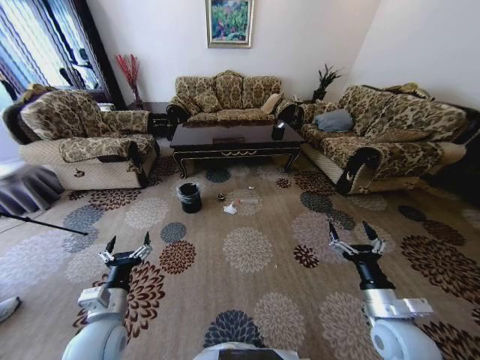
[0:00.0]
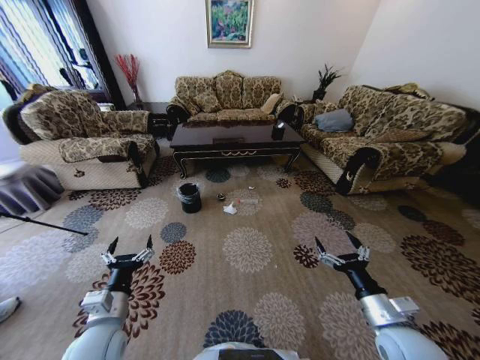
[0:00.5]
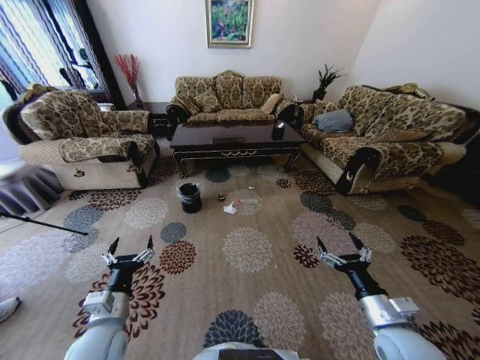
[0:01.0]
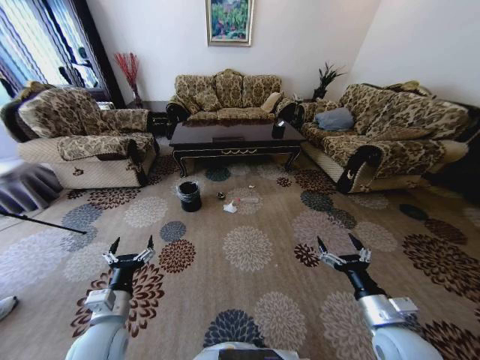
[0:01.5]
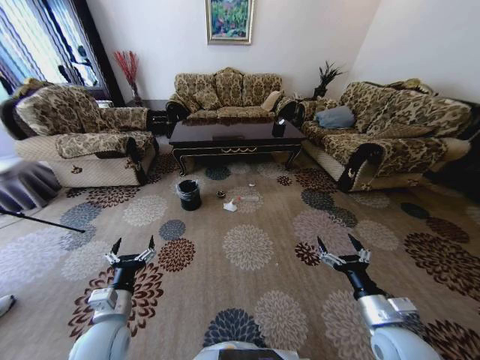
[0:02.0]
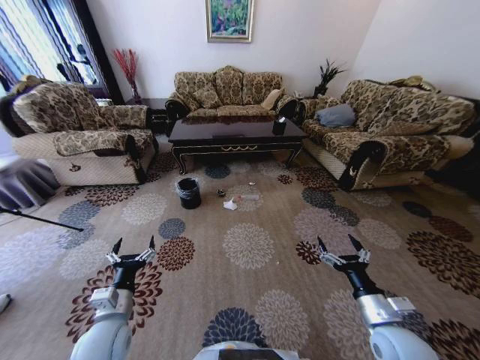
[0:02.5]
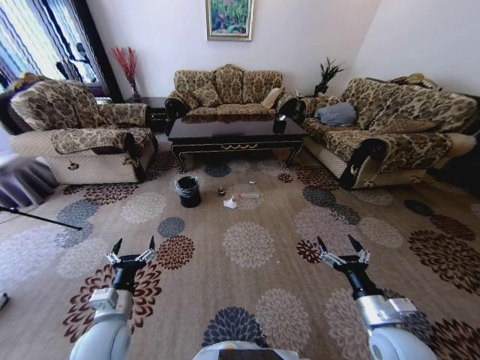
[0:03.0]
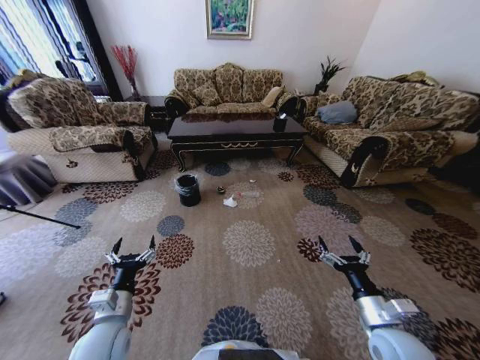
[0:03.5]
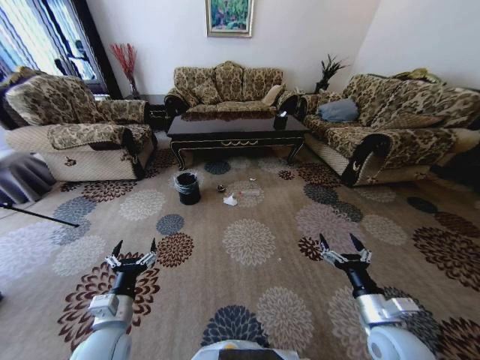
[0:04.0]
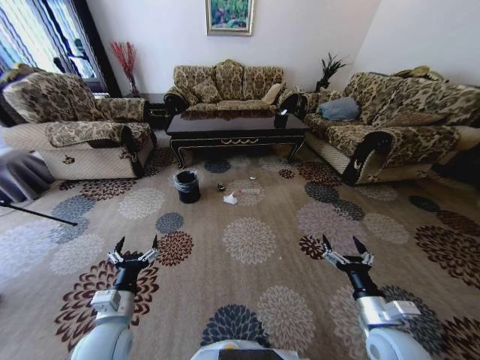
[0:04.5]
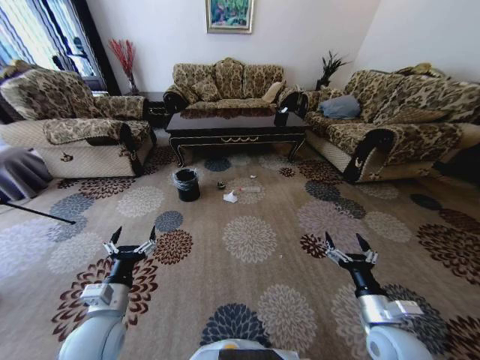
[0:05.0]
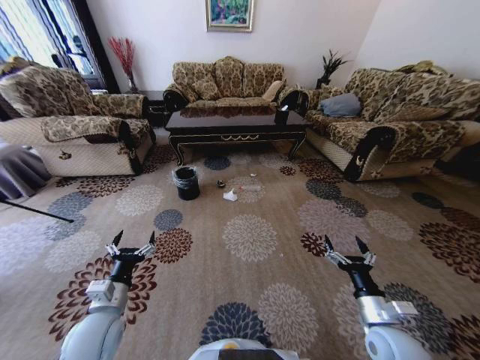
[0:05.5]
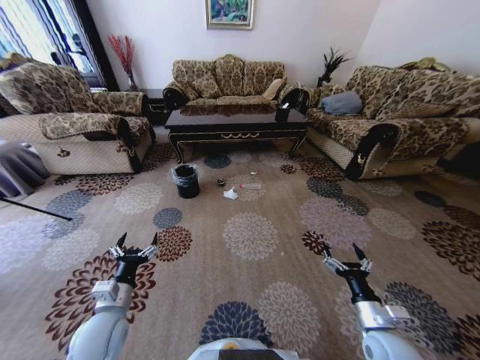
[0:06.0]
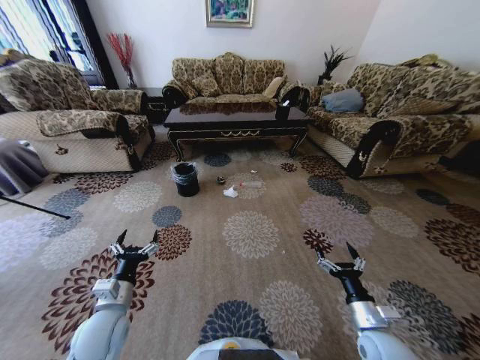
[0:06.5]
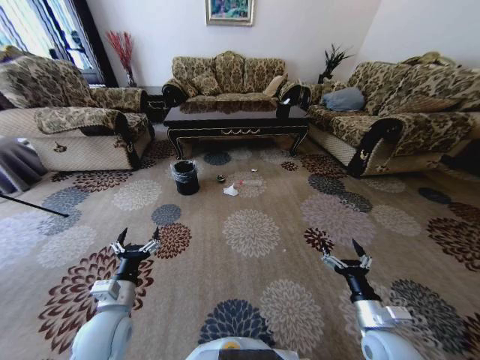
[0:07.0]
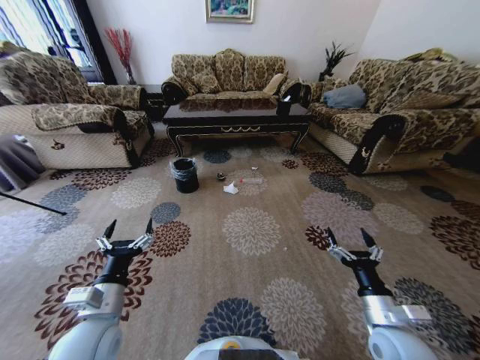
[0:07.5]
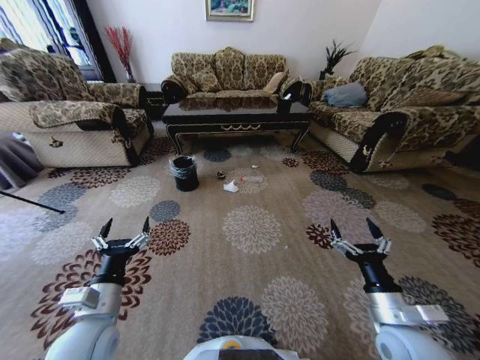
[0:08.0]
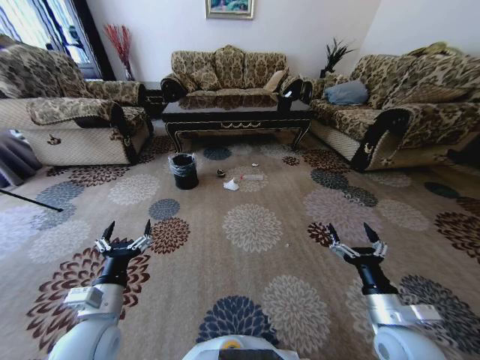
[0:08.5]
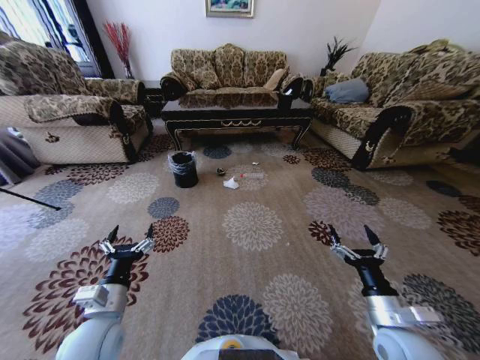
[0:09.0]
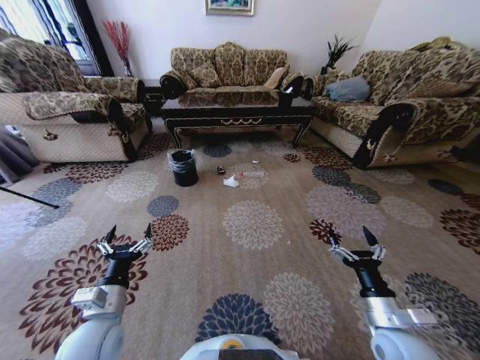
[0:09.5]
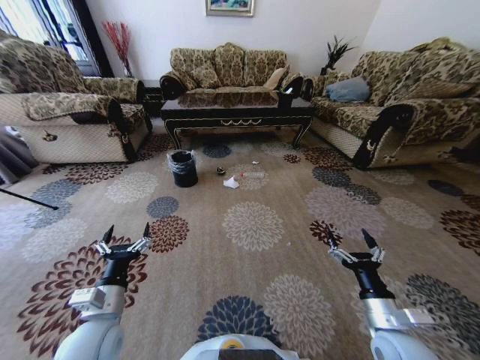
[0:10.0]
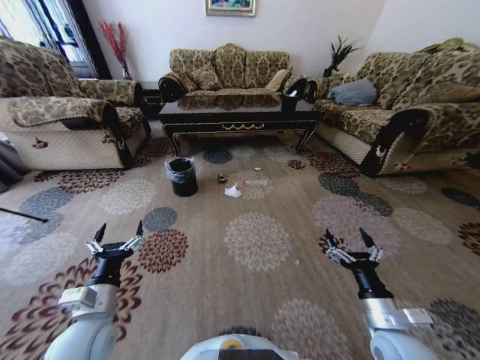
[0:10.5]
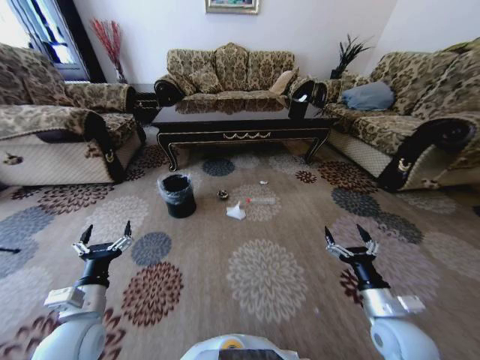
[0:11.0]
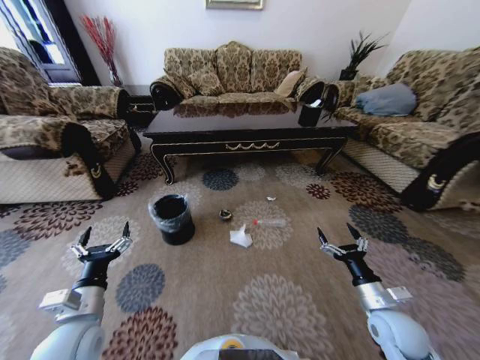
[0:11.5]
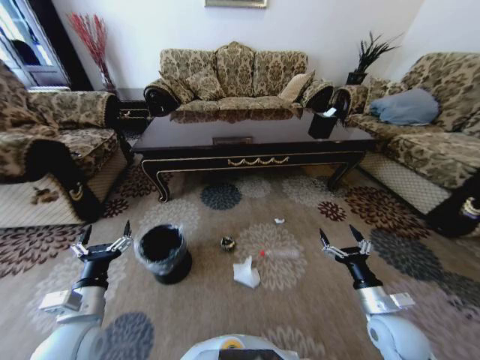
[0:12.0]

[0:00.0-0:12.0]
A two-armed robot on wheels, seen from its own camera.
Task of the whole recording: Move to the front of the table and pick up the trash from the floor, then place it into the trash bin.
0:06.0 to 0:08.0: The two grippers go approximately 10 cm upward.
0:10.0 to 0:12.0: The right gripper changes place by about 5 cm.

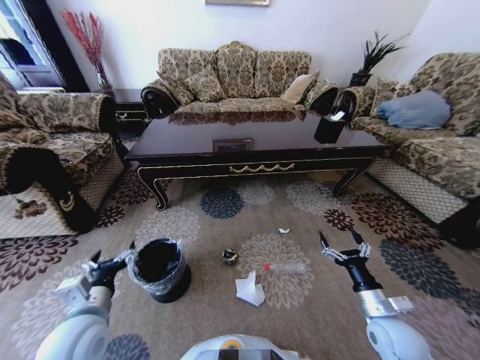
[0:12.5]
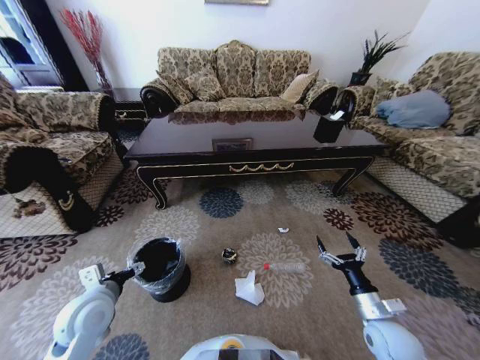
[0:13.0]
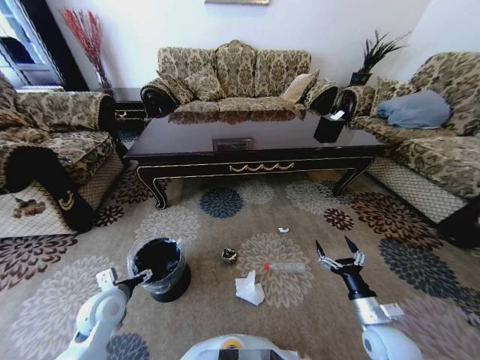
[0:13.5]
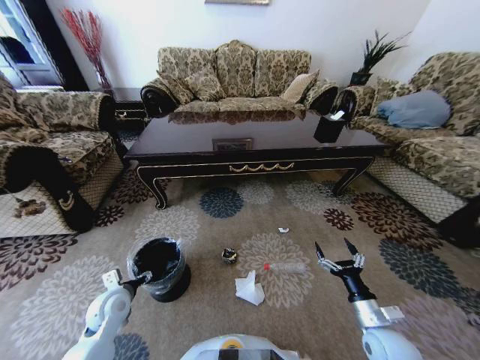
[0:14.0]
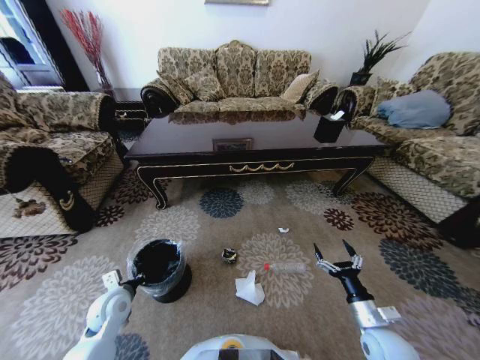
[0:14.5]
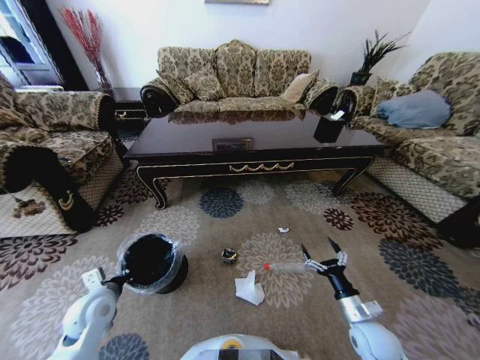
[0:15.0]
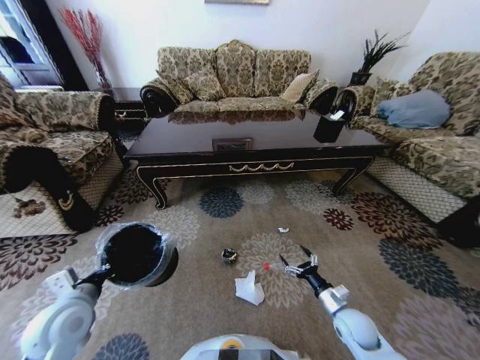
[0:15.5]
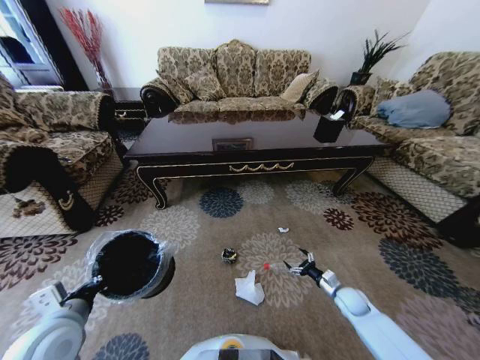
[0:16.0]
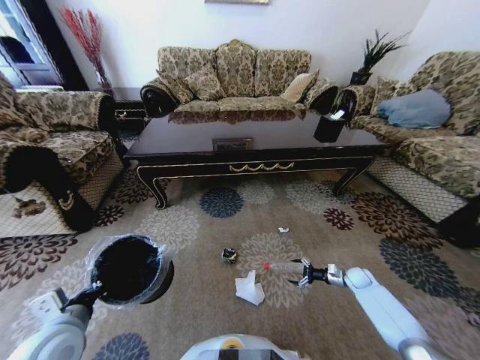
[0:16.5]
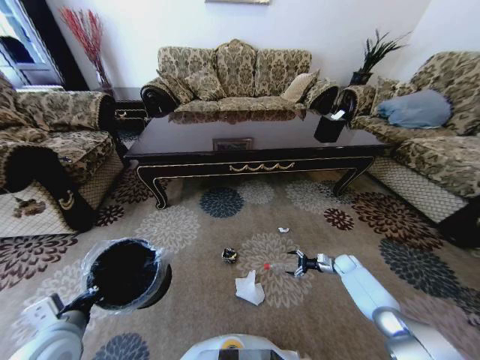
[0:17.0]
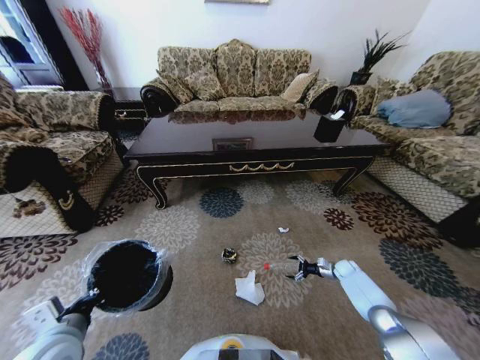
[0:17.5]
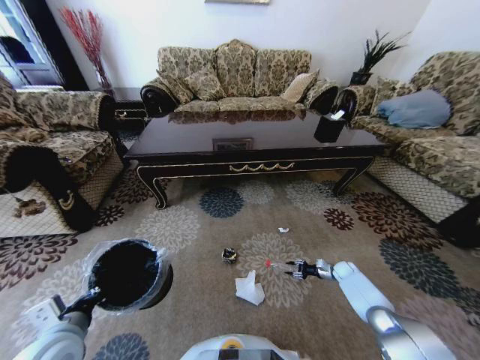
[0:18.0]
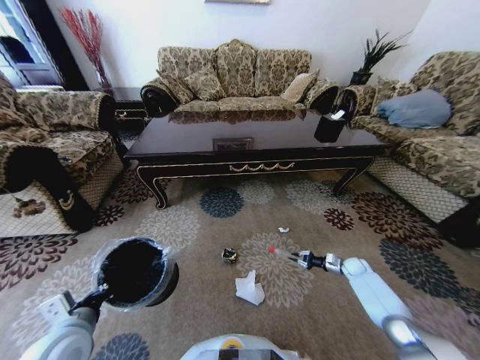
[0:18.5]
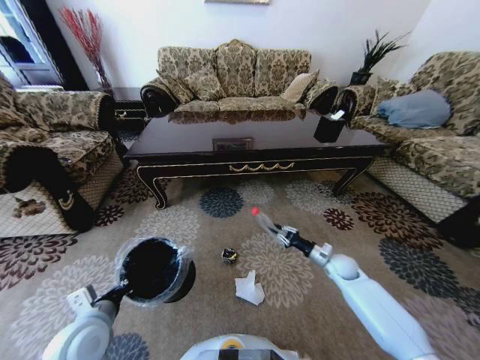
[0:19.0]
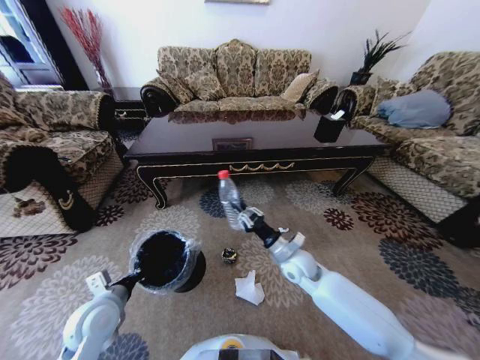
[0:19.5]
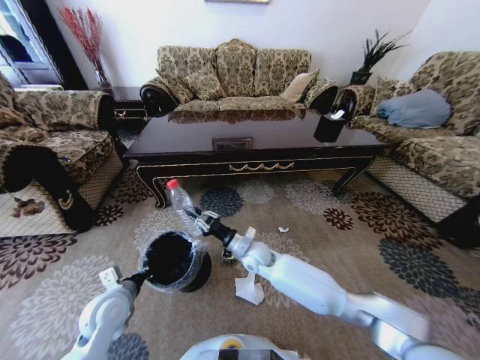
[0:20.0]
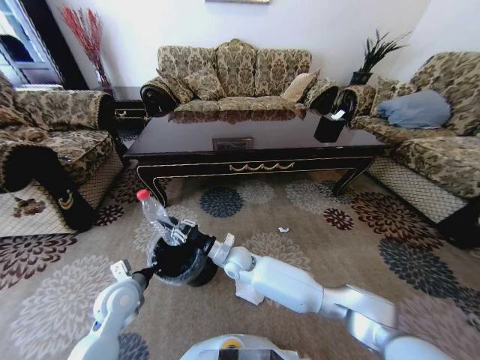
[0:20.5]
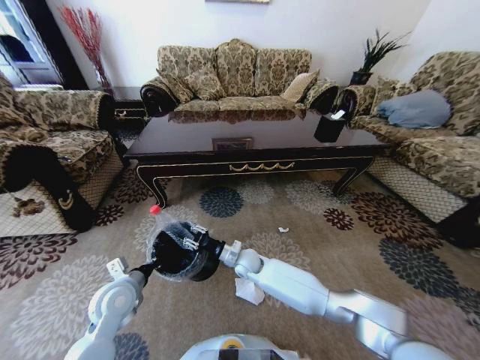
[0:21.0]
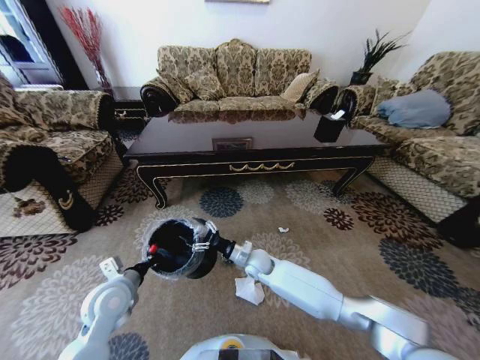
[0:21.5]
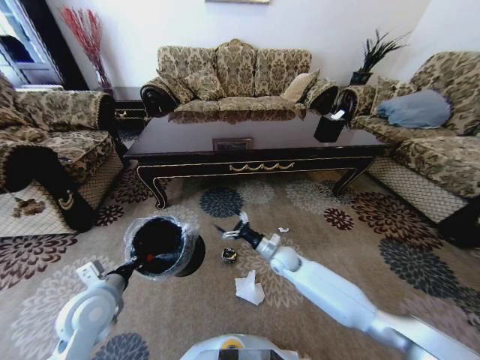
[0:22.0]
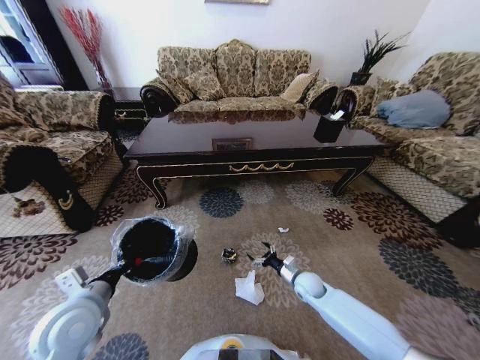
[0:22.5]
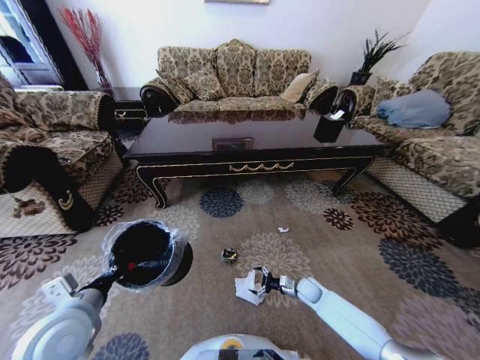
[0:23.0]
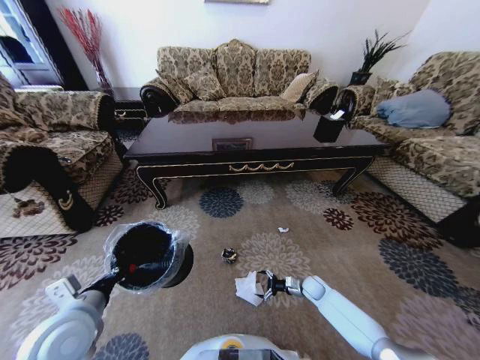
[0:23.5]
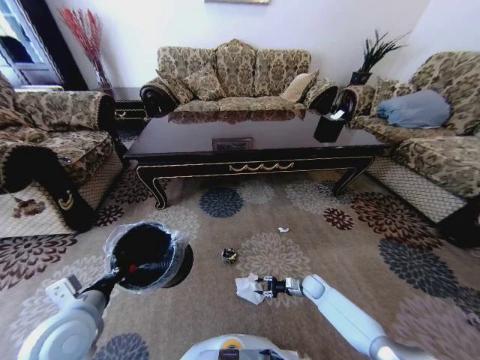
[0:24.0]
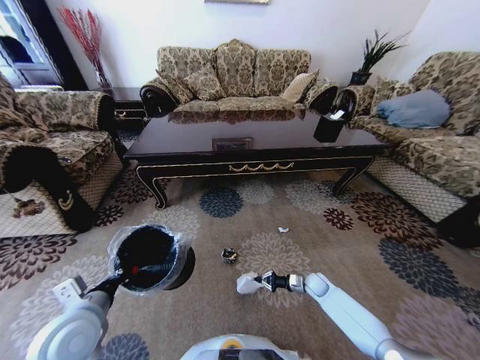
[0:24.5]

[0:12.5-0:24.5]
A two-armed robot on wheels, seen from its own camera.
Task of the whole recording: Move to the front of the table and pick up the trash from the floor, then place it into the trash bin.
0:12.5 to 0:14.5: The left gripper moves downward and forward, roughly 15 cm, and closes up.
0:14.5 to 0:16.5: The right gripper moves forward, to the right and downward, approximately 30 cm; the left gripper shifts some 15 cm upward and backward.
0:16.5 to 0:18.5: The right gripper closes.
0:18.5 to 0:20.5: The left gripper travels forward and downward by approximately 15 cm, while the right gripper is displaced to the left by about 50 cm.
0:20.5 to 0:22.5: The right gripper moves to the right and downward, some 30 cm, and opens up. Meanwhile the left gripper is displaced upward and backward by approximately 10 cm.
0:22.5 to 0:24.5: The right gripper moves to the right and downward, some 10 cm, and closes its fingers.

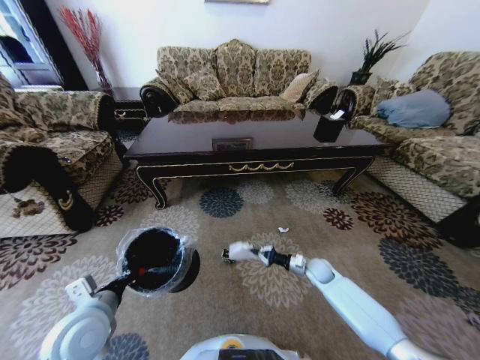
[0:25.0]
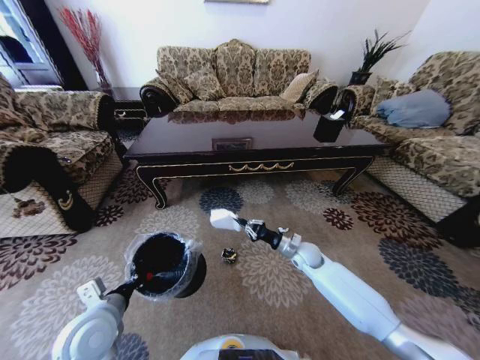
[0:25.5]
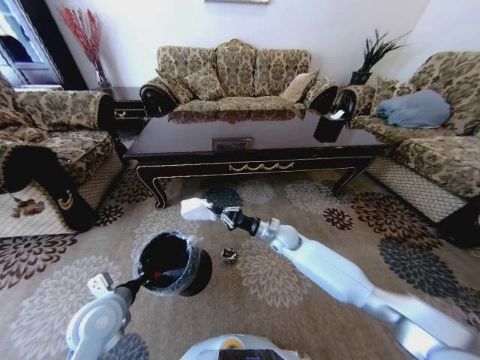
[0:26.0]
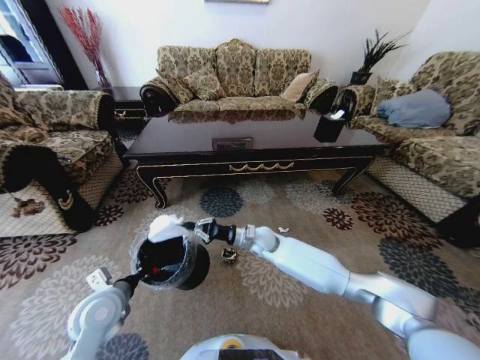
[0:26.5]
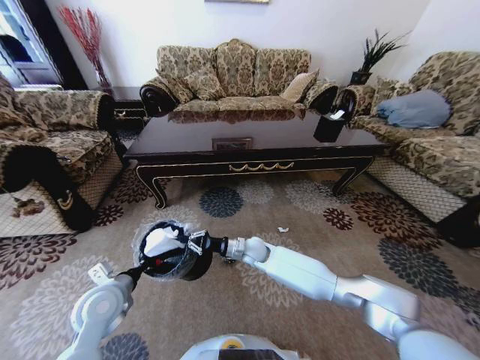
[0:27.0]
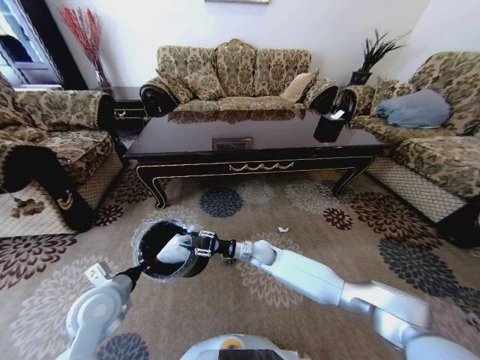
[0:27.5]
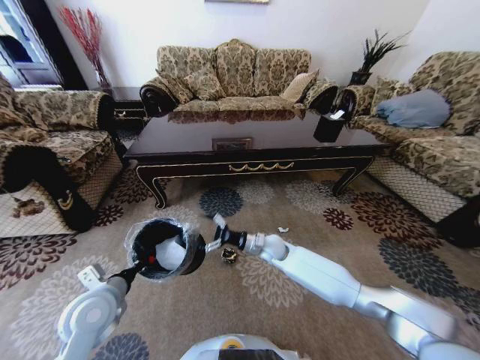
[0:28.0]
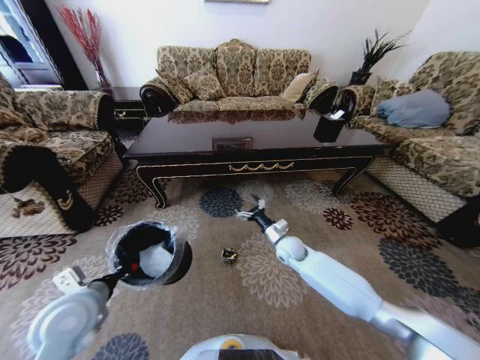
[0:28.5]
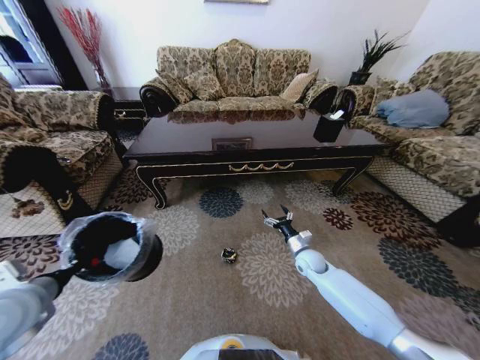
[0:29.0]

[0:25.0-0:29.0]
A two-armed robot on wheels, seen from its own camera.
Task of the whole recording: Move to the front of the table and pick up the trash from the floor, then place it into the trash bin.
0:25.0 to 0:27.0: The left gripper moves forward, some 5 cm. Meanwhile the right gripper shifts approximately 25 cm to the left.
0:27.0 to 0:29.0: The left gripper goes roughly 15 cm upward and to the left; the right gripper shifts about 20 cm to the right, and opens its fingers.
